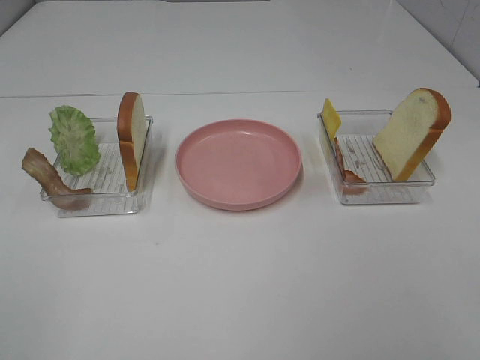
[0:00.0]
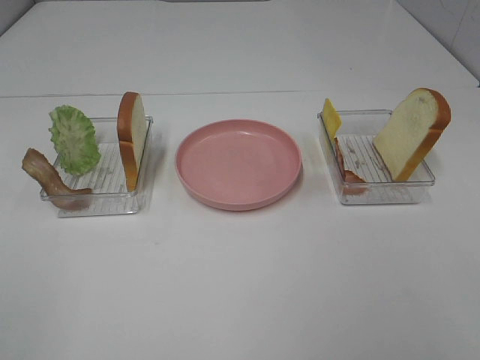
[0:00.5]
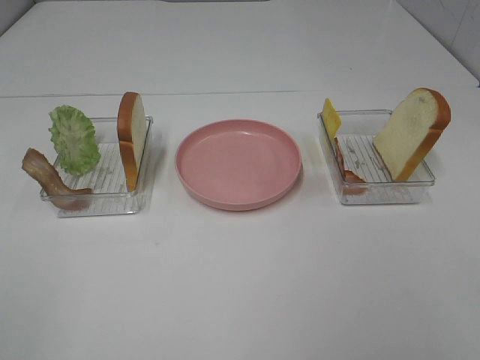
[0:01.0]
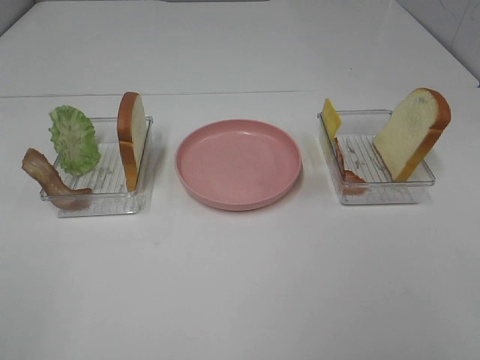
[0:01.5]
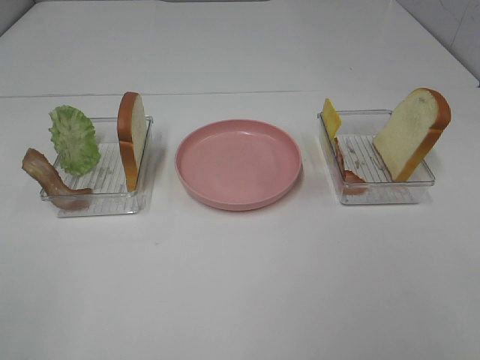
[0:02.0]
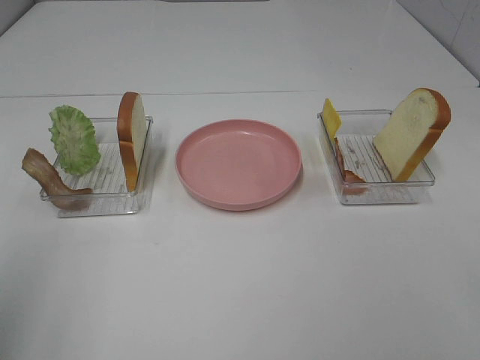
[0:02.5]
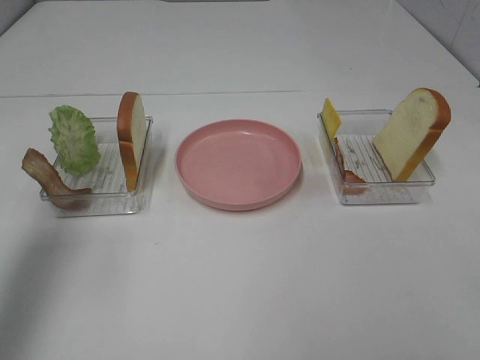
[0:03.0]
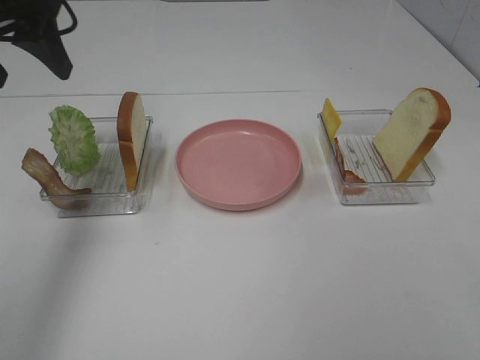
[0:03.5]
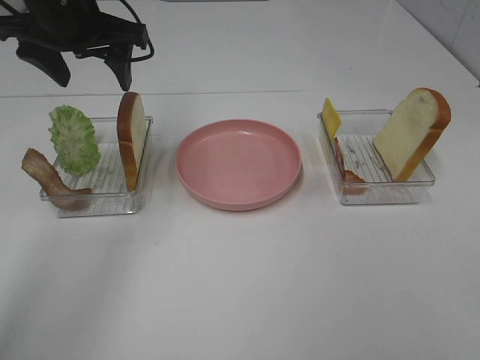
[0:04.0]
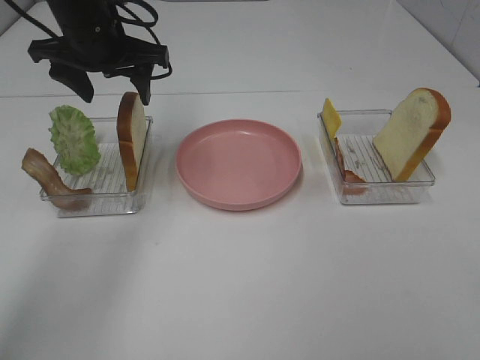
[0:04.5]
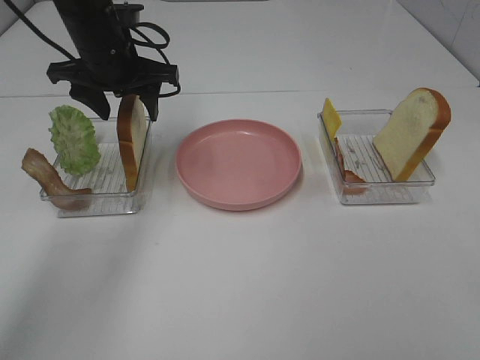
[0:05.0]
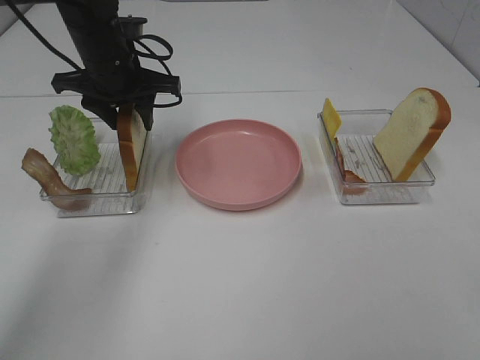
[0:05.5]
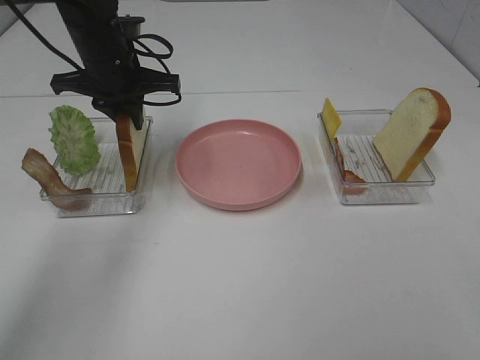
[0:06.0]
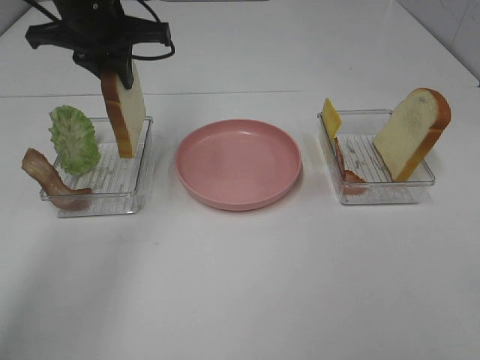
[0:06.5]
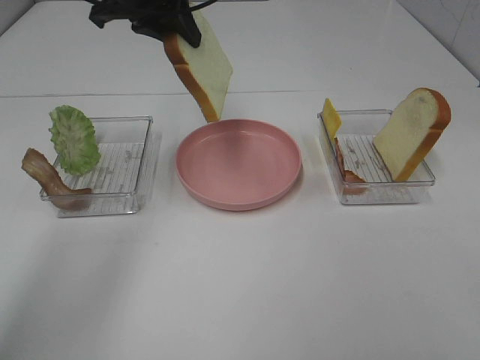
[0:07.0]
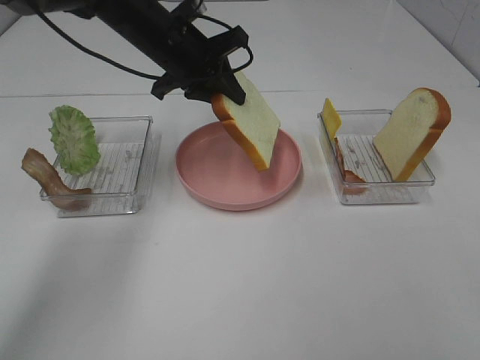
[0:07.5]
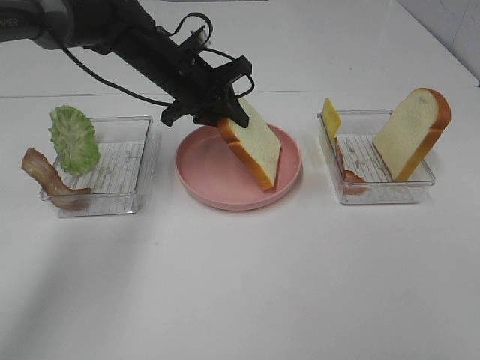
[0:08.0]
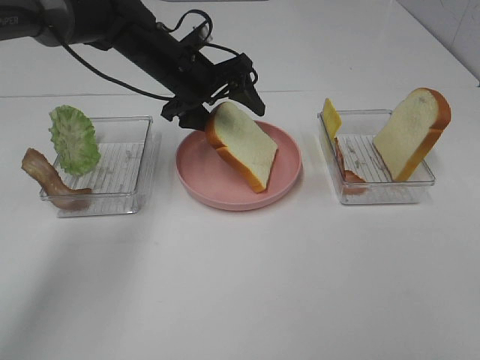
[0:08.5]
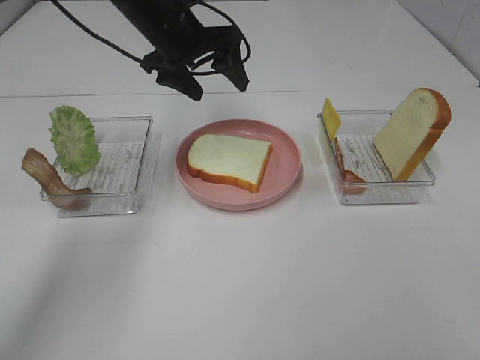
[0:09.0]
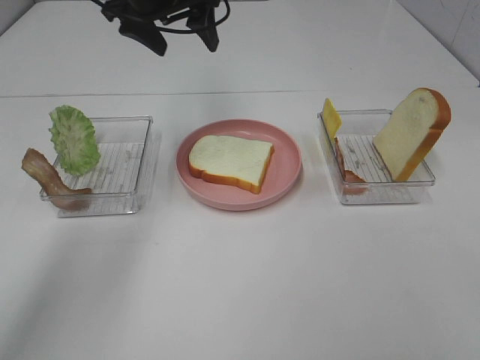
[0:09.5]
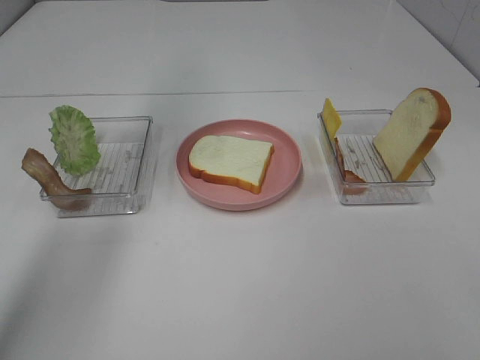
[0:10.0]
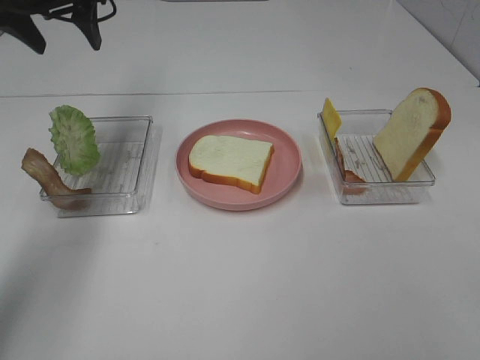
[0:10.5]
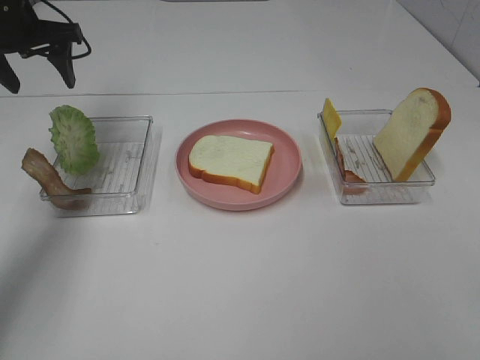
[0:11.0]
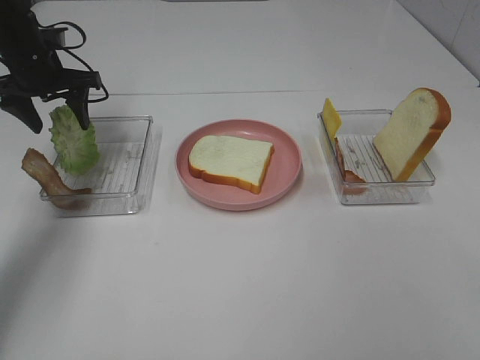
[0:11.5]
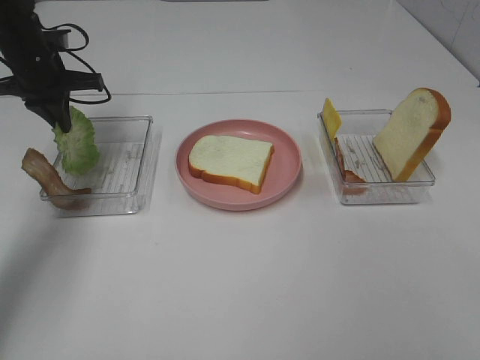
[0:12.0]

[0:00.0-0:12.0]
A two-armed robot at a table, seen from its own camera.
Task of the whole recording: Make sandwiches.
Step, 0.0 to 6.0 s: Left hand:grab the bread slice.
Step, 6.5 to 9.0 s: Left hand:place the bread slice on the plate.
0.0 to 2.0 s: Both grippers stay about where they are.
2.0 to 4.0 s: The left gripper goes some 40 cm forward.
4.0 to 6.0 s: The left gripper goes some 10 cm downward, and closes up.
6.0 to 8.0 s: The left gripper moves to the right, roughly 5 cm, and reaches approximately 10 cm upward, then returns.
8.0 to 10.0 s: The left gripper goes about 20 cm upward and to the left, and opens.
10.0 to 12.0 s: The left gripper is displaced downward and to the left by about 20 cm, and closes its fingers.

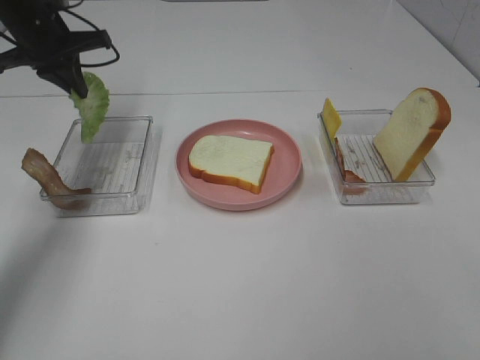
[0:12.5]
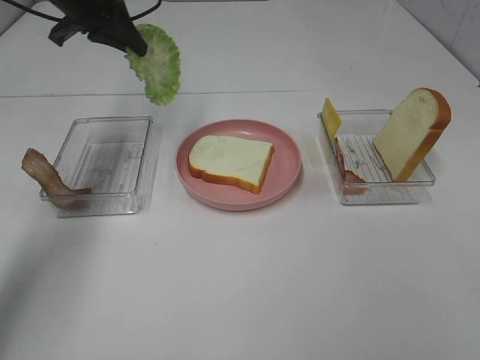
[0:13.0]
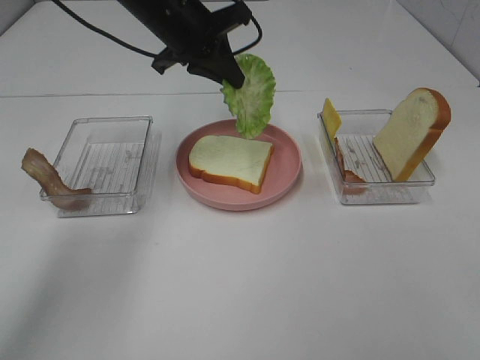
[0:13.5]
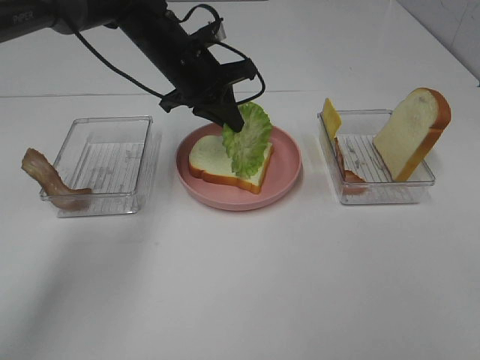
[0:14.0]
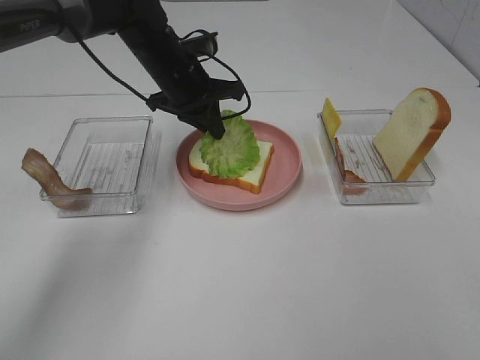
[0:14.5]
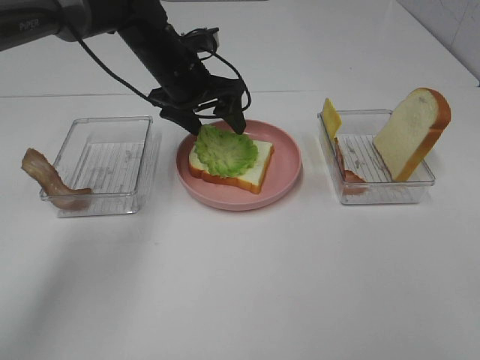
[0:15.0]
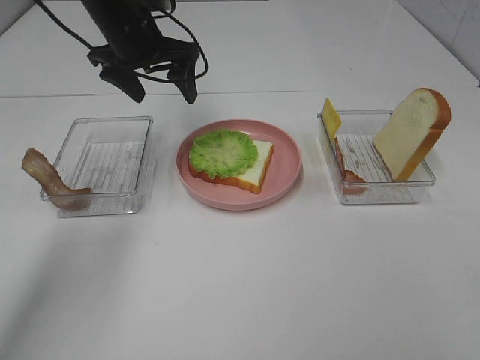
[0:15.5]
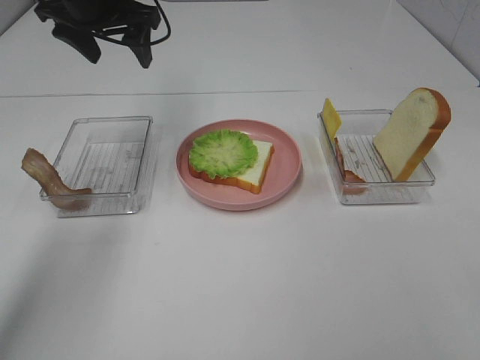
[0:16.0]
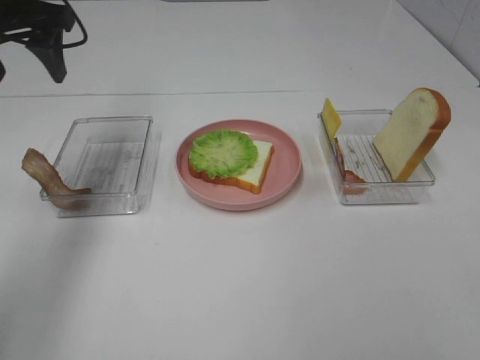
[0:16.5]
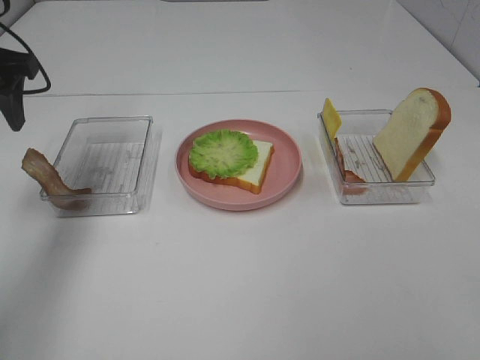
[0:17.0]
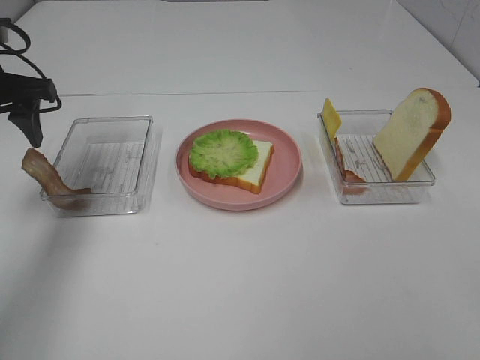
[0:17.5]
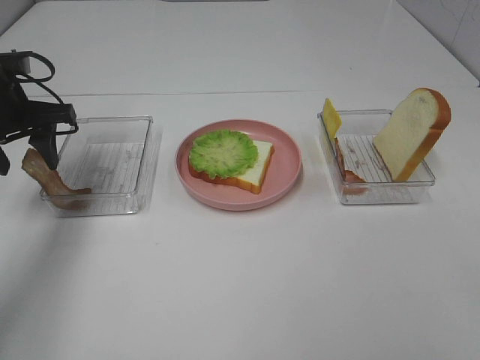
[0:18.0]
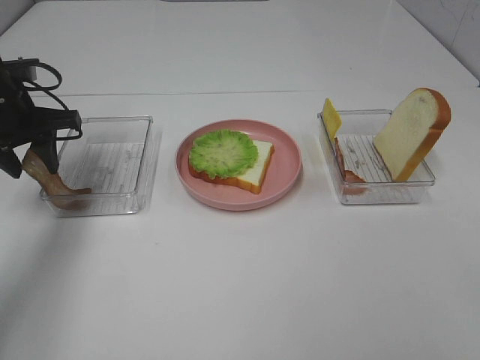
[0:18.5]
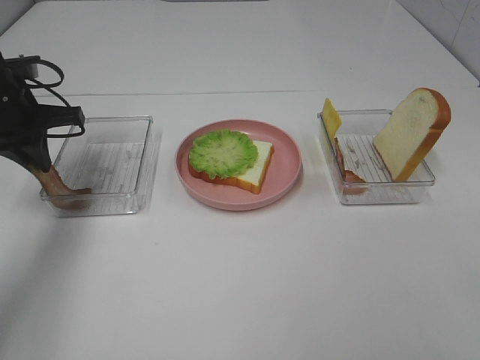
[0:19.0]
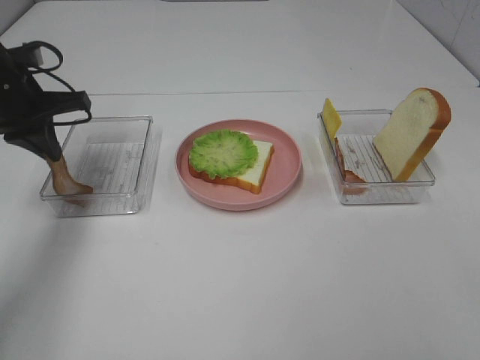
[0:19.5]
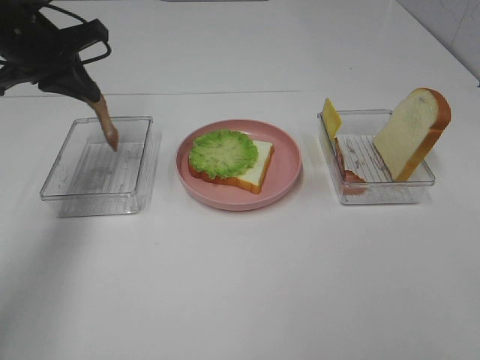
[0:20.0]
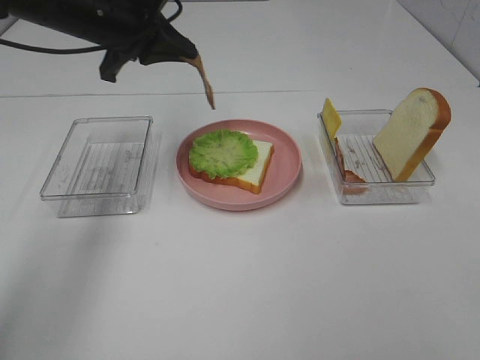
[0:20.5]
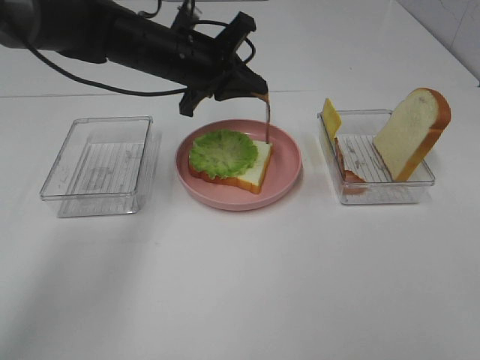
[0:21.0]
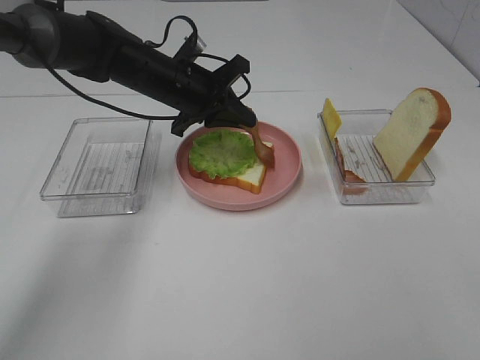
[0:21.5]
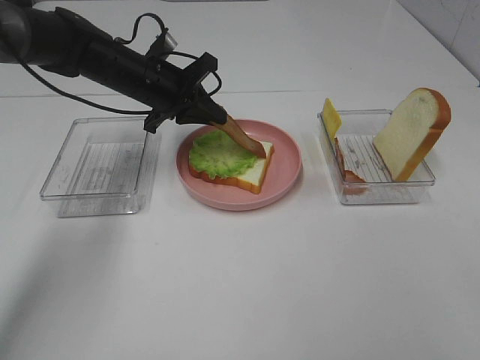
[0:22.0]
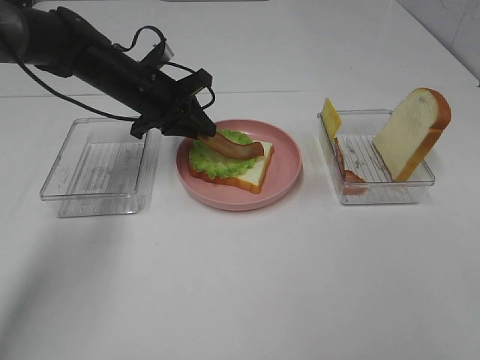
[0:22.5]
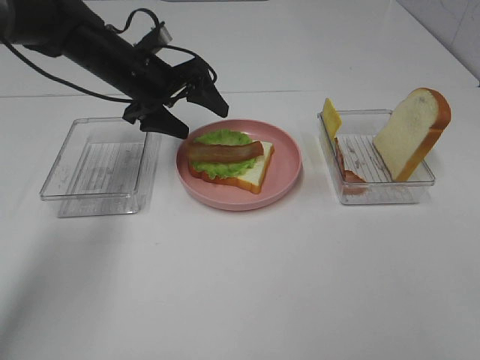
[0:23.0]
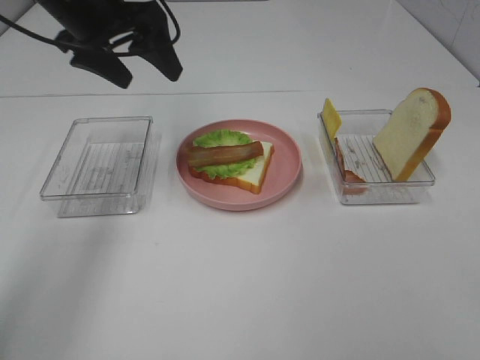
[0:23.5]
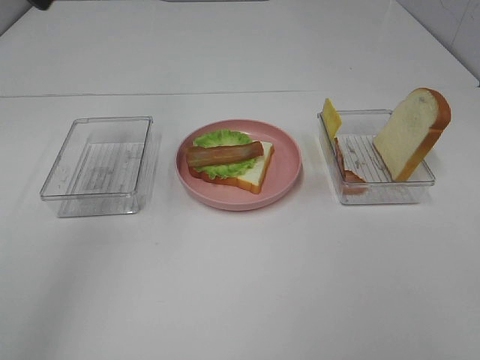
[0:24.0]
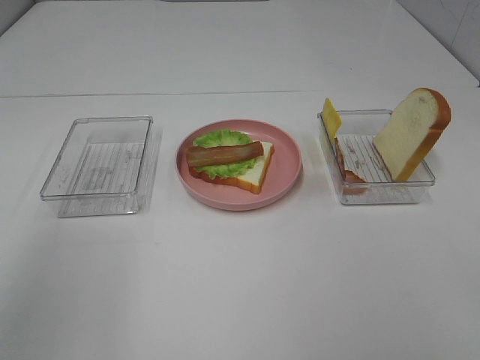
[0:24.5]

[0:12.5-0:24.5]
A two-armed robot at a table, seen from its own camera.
Task of the whole recording: Make sandwiches.
Step, 12.5 to 15.0 s: Left hand:place the lettuce slice on the bread slice.
Step, 15.5 to 19.0 s: Left hand:grab the bacon.
Step, 19.5 to 23.0 s: Left hand:place bacon on lettuce slice.
12.5 to 14.5 s: The left gripper moves to the right, approximately 20 cm.
14.5 to 16.5 s: The left gripper goes roughly 25 cm to the left, upward and backward, and opens up.
16.5 to 18.5 s: The left gripper shifts about 15 cm downward.
18.5 to 20.5 s: The left gripper heads to the right and upward, covering approximately 15 cm, and closes its fingers.
20.5 to 22.5 s: The left gripper goes about 10 cm downward.
22.5 to 24.5 s: The left gripper is displaced backward, upward and to the left by approximately 40 cm, and opens its fingers.

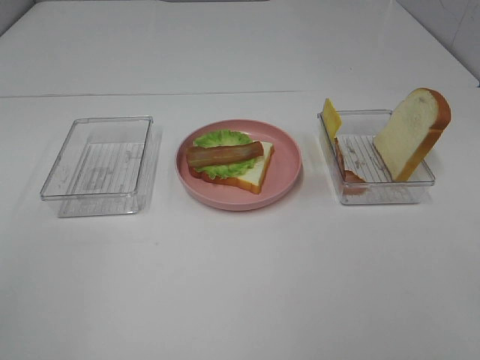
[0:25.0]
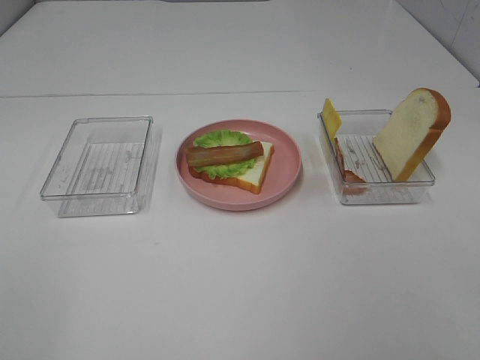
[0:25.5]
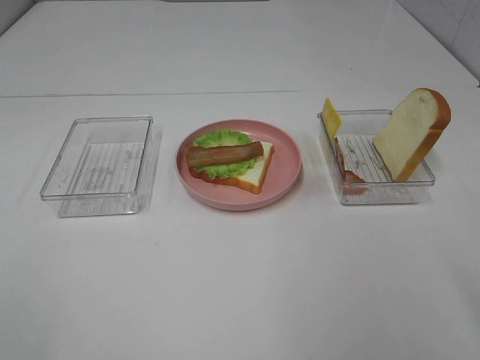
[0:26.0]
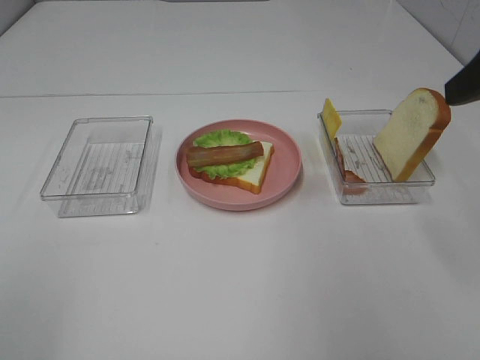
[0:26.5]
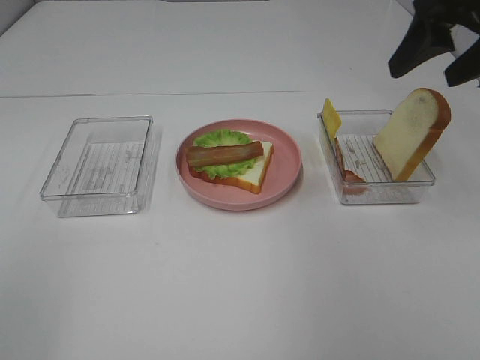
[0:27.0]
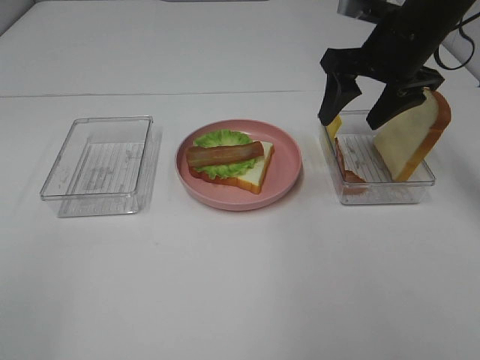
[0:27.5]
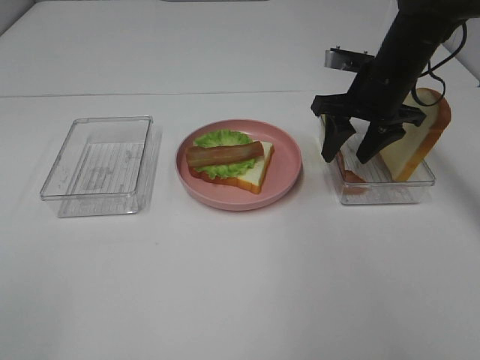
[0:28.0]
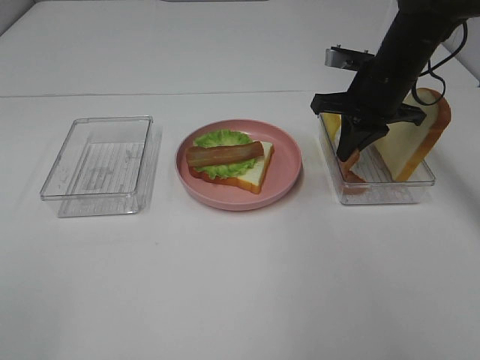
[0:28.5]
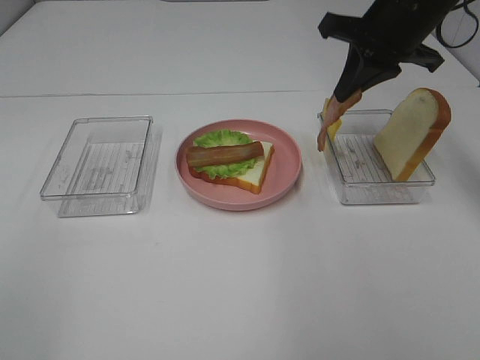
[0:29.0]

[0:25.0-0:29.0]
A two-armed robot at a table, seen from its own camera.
Task of the whole recording: Make sandwiches.
Step, 25.0 to 28.0 s: Right hand:grab the bacon.
25.0 to 27.0 s: The right gripper travels forward by about 35 cm.
27.0 to 29.0 s: The right gripper travels forward and to the left by approximately 10 cm, moves some 15 cm downward and comes back, and closes.
